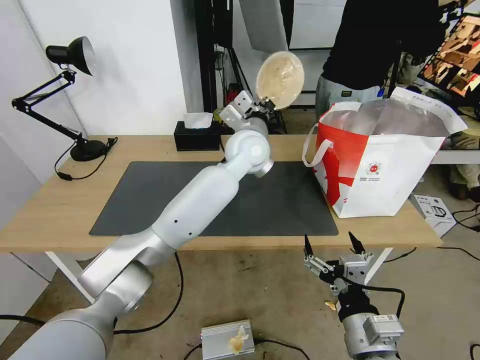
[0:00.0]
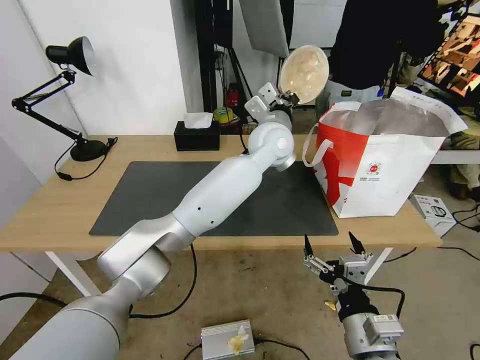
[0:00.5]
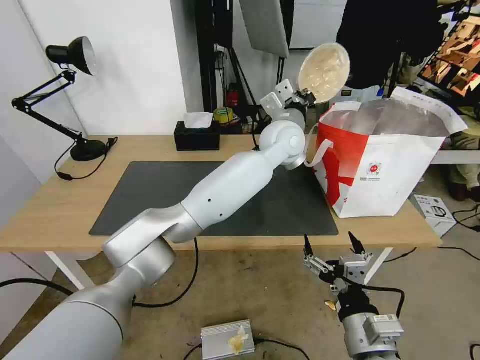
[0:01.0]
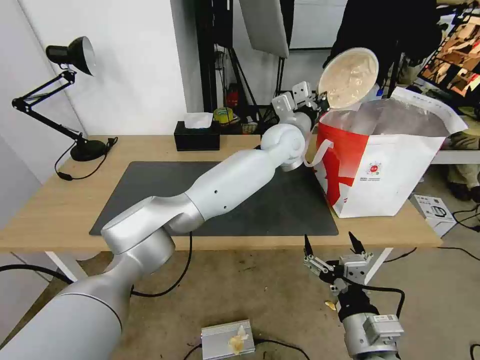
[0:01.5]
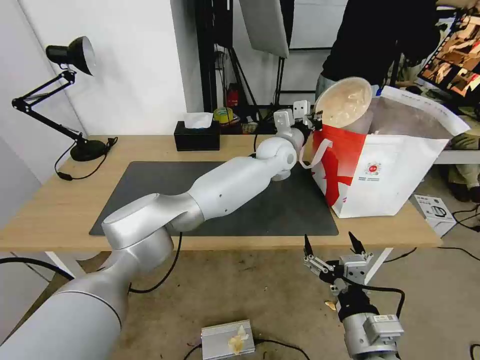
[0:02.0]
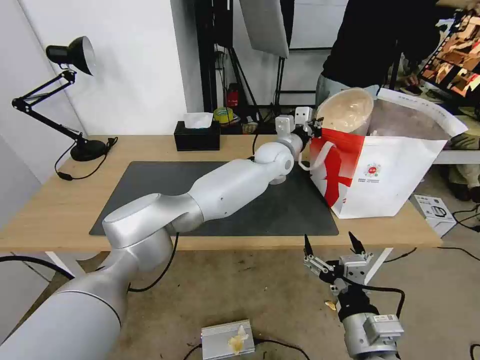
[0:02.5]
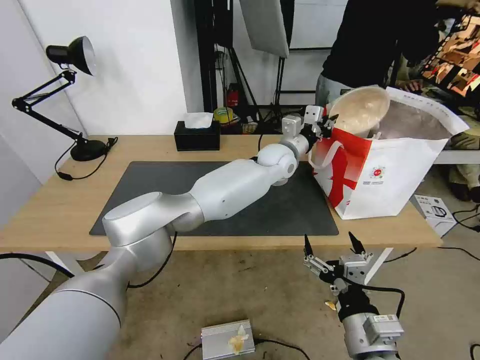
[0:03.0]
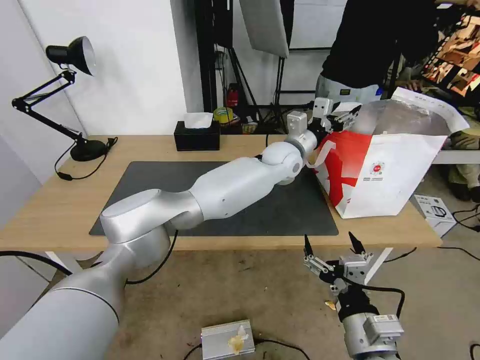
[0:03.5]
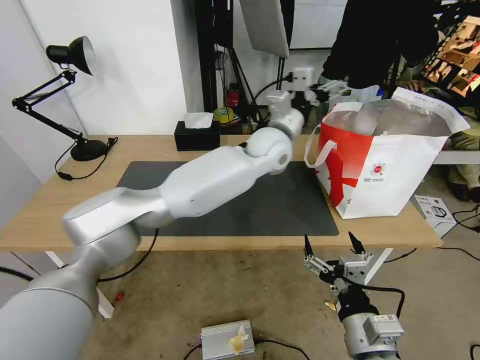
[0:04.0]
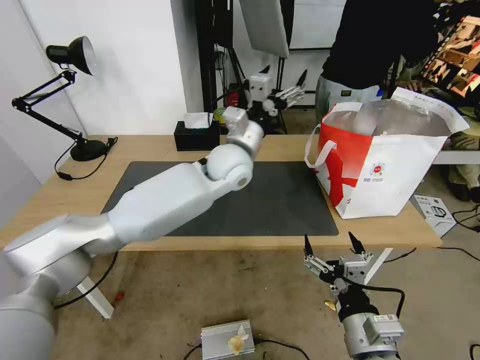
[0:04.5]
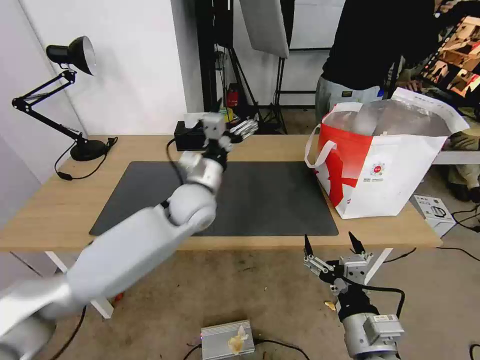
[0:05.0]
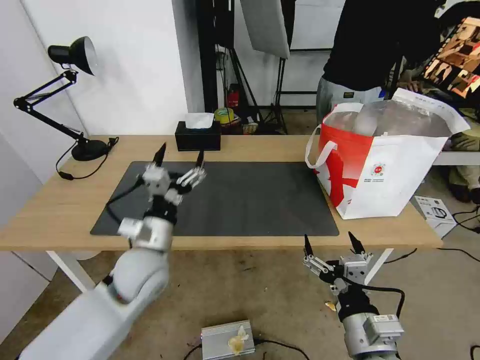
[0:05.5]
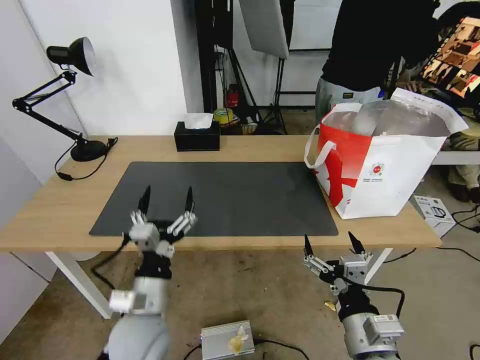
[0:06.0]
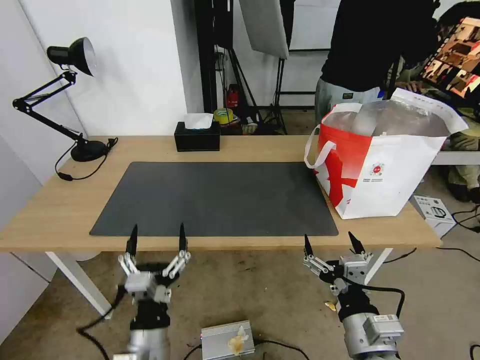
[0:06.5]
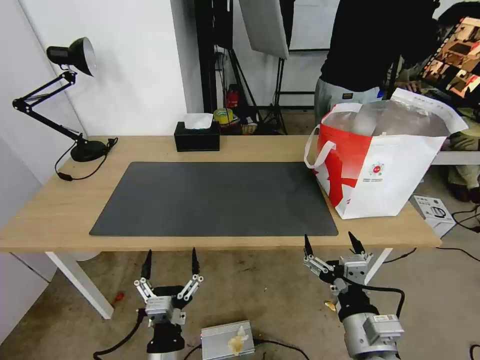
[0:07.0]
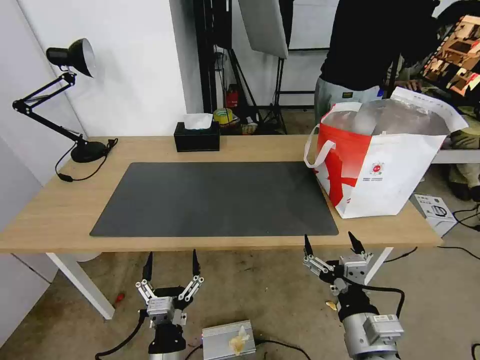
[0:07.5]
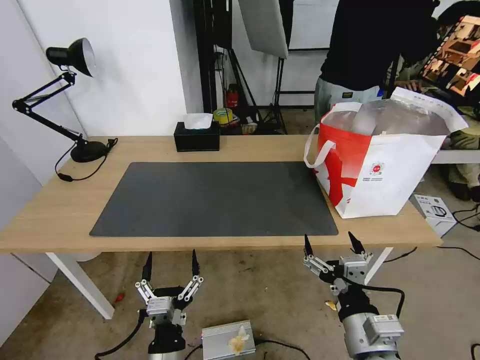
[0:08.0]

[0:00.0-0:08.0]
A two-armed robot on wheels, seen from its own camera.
Task of the whole recording: Pick up the trash from the table and place it into the takeout bag.
0:00.0 to 0:02.0: The left gripper goes roughly 10 cm to the right, forward and downward.
0:02.0 to 0:04.0: The left gripper moves upward, about 5 cm, and opens up.
0:04.0 to 0:06.0: The left gripper travels backward, to the left and downward by approximately 40 cm.
0:06.0 to 0:08.0: The left gripper is displaced backward, downward and to the right by some 15 cm.

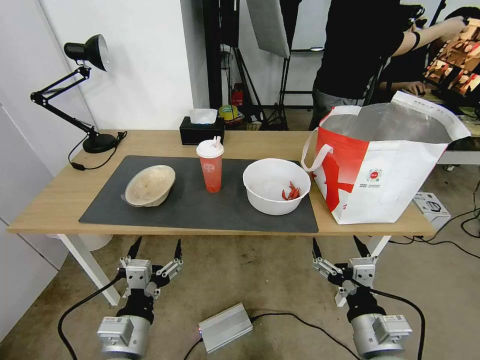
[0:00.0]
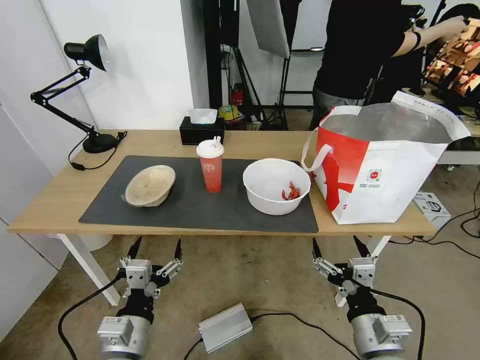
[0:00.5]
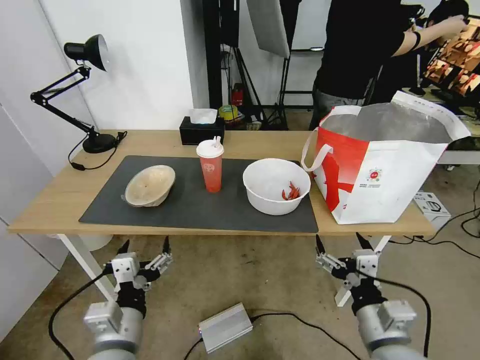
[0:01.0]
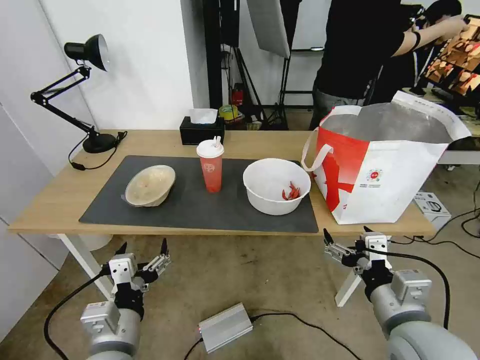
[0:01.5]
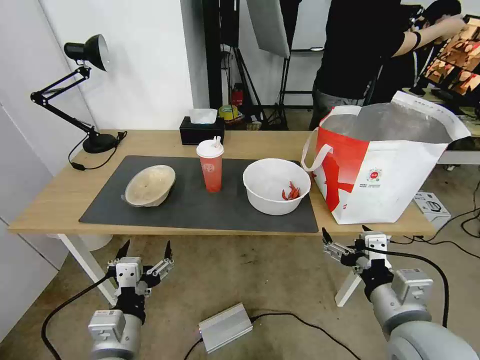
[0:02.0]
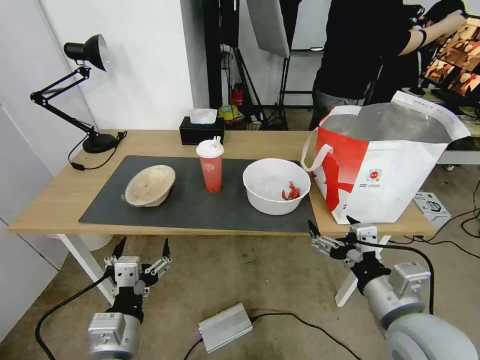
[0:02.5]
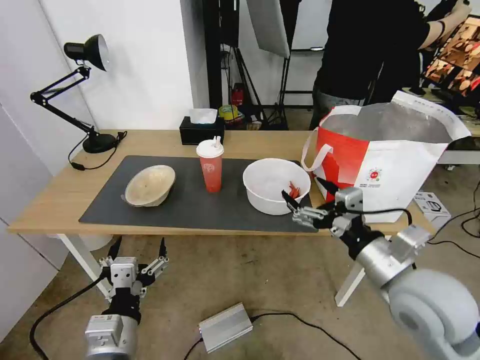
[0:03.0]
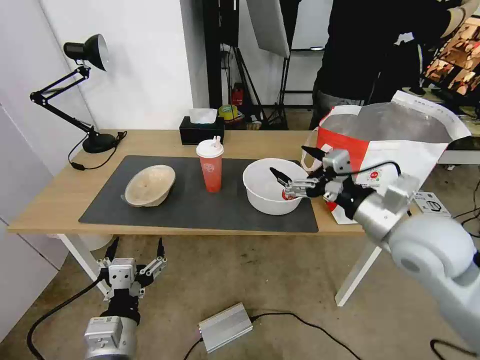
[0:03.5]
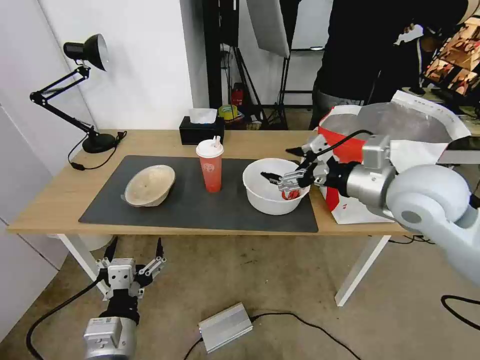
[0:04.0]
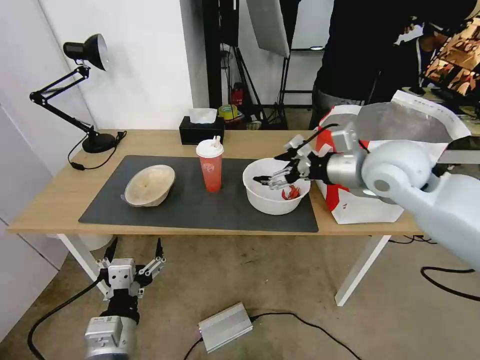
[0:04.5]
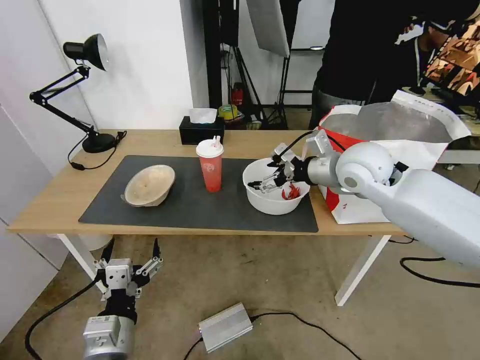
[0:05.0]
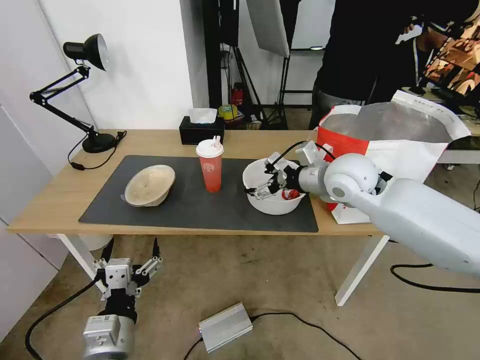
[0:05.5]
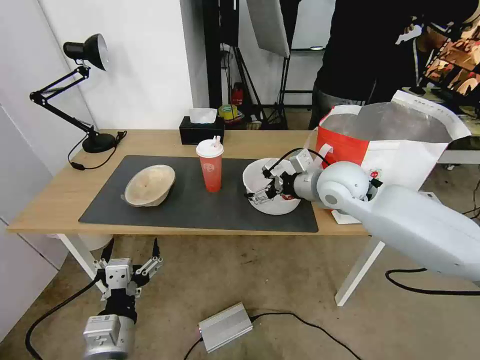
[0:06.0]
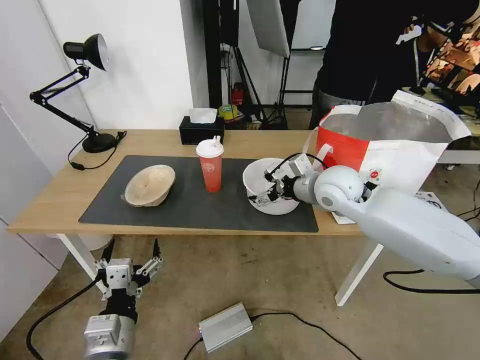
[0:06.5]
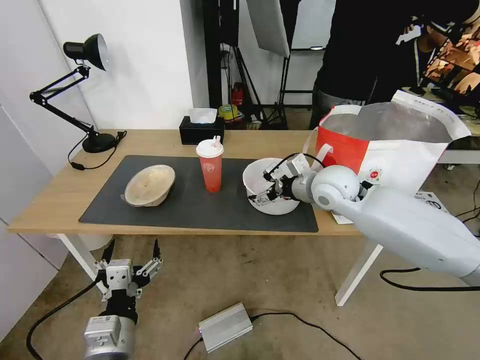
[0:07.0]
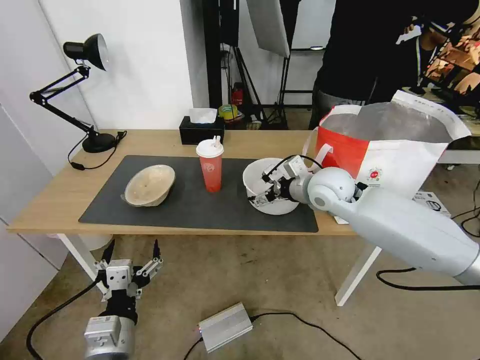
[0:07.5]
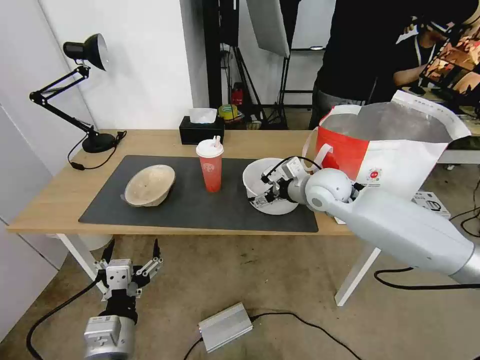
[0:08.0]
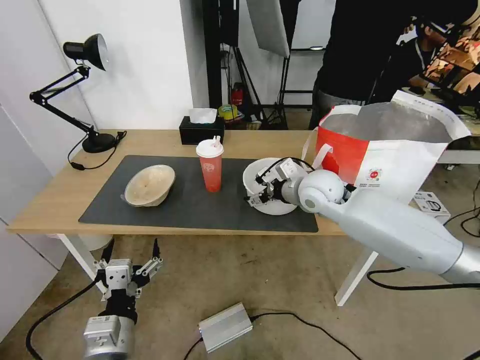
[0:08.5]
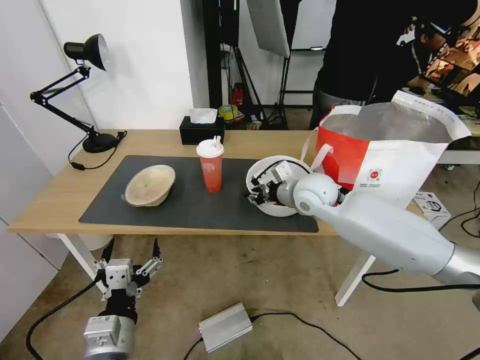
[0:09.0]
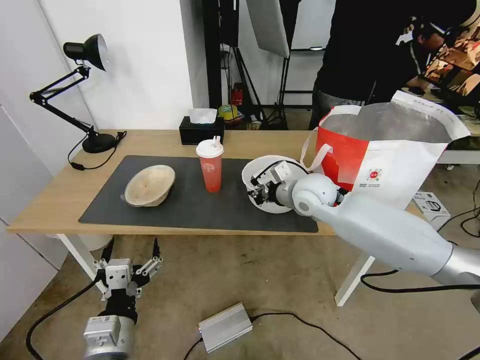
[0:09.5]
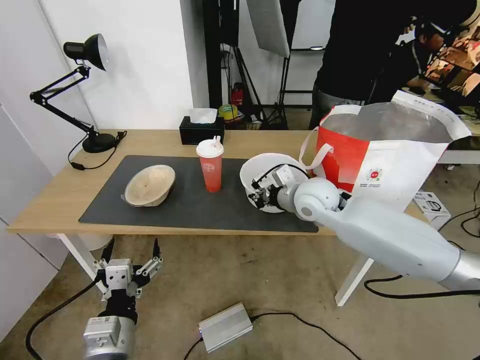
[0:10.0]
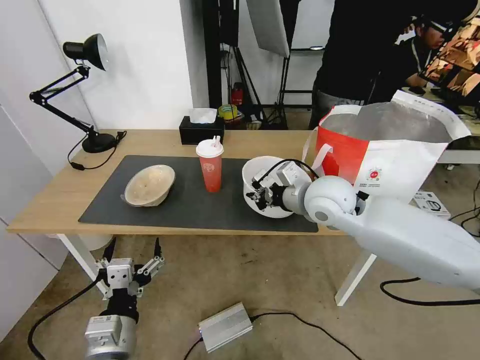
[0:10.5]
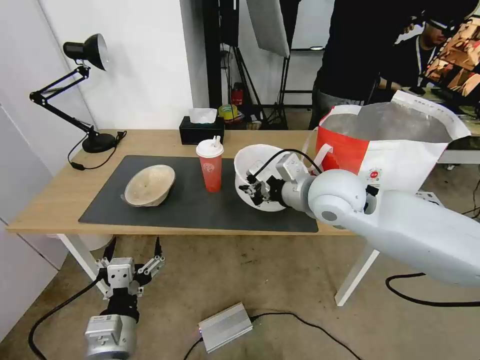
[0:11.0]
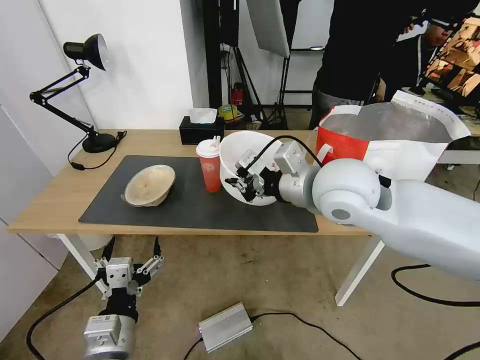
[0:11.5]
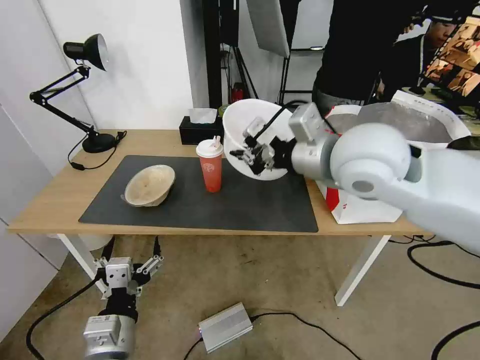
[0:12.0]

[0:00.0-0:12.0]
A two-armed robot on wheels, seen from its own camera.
Task of the whole recording: Pick up the trash from the table and place it into the takeout bag.
0:02.0 to 0:04.0: The right gripper shifts about 25 cm forward and upward.
0:04.0 to 0:06.0: The right gripper is displaced forward, downward and to the left by roughly 15 cm.
0:06.0 to 0:08.0: The grippers make only small movements.
0:08.0 to 0:10.0: The right gripper closes its fingers.
0:10.0 to 0:12.0: The right gripper is displaced upward and backward by about 20 cm.

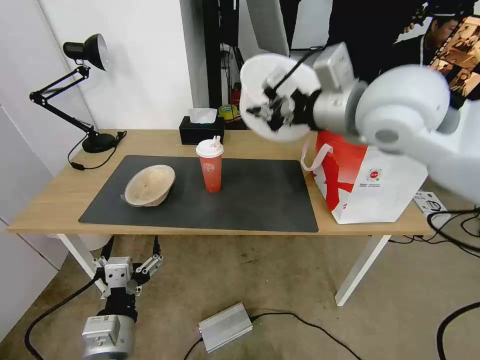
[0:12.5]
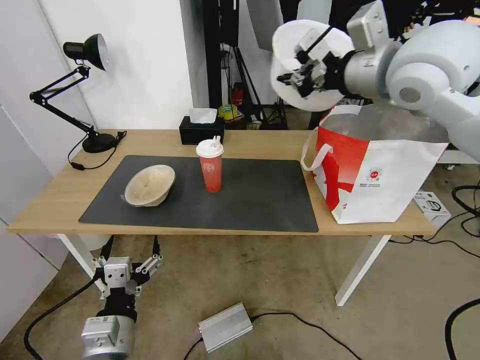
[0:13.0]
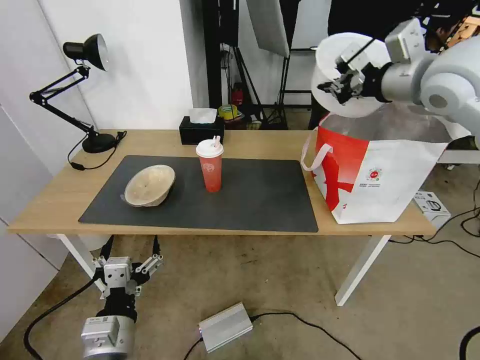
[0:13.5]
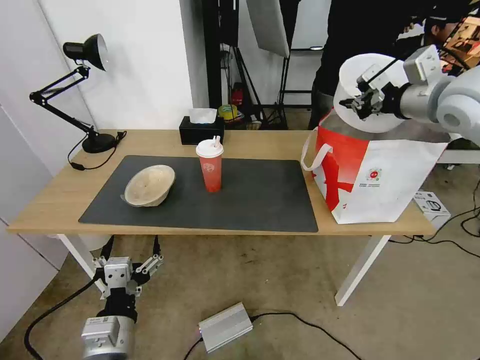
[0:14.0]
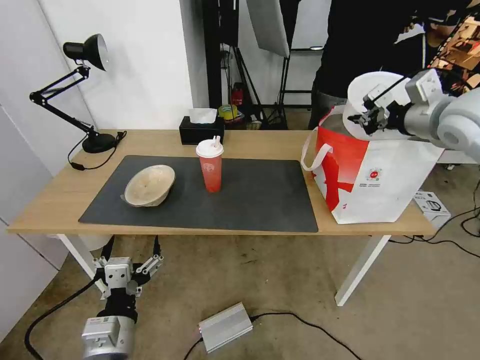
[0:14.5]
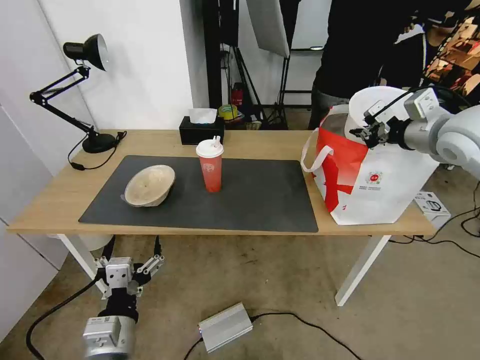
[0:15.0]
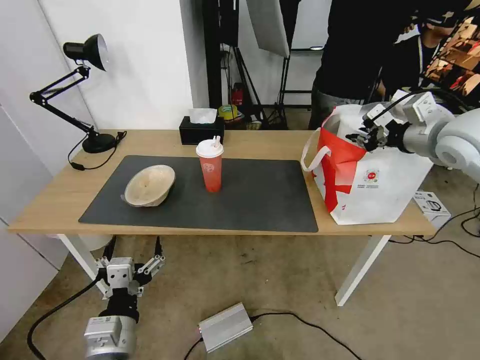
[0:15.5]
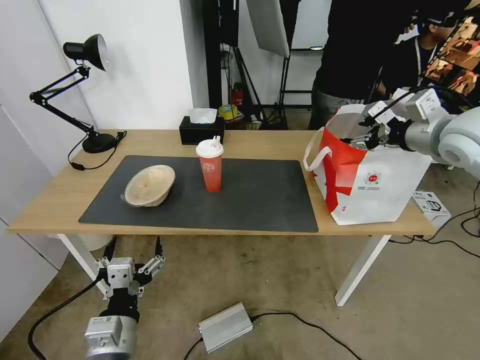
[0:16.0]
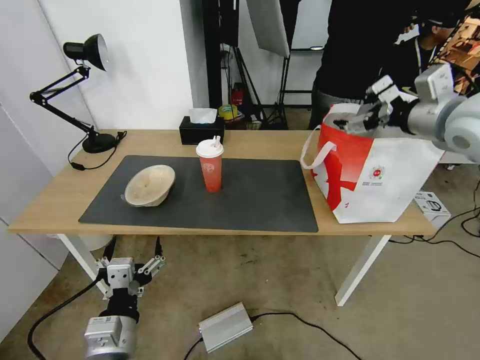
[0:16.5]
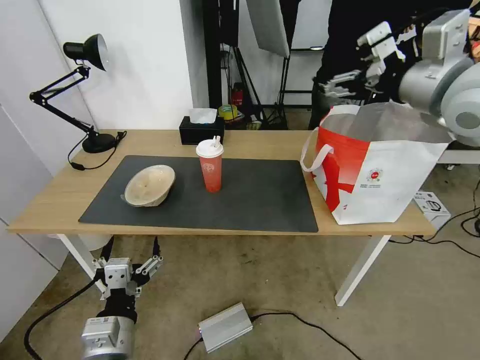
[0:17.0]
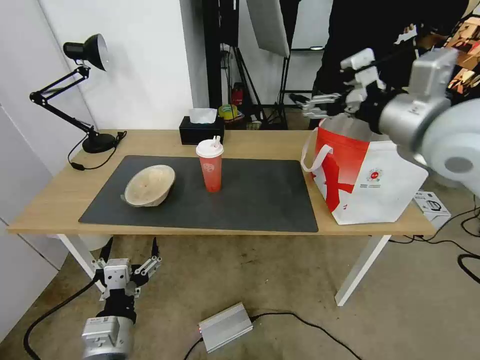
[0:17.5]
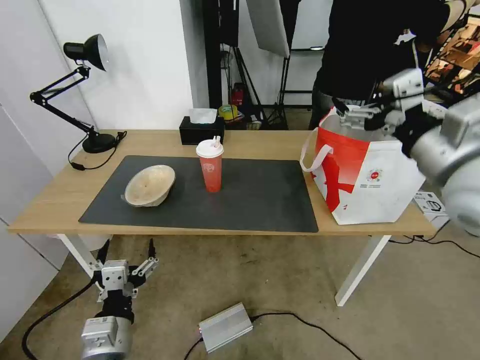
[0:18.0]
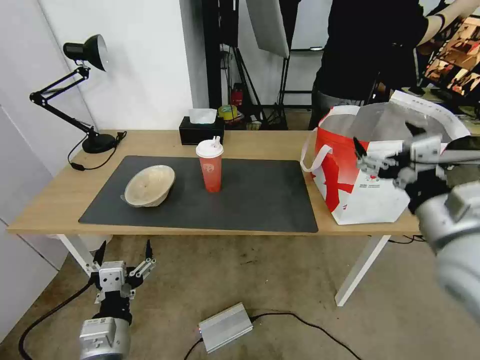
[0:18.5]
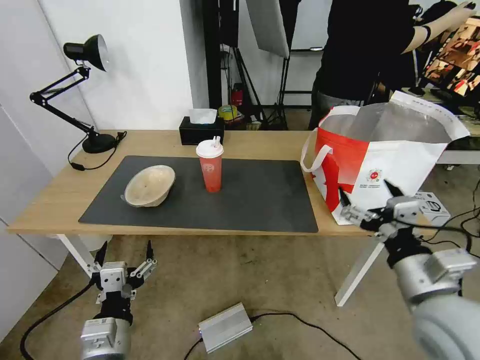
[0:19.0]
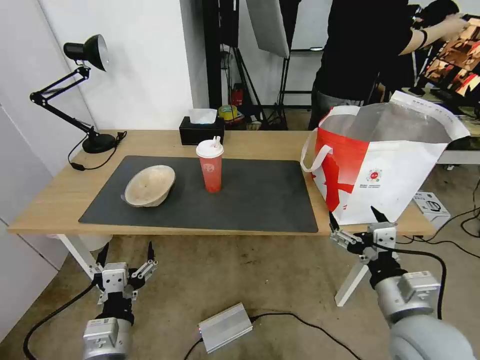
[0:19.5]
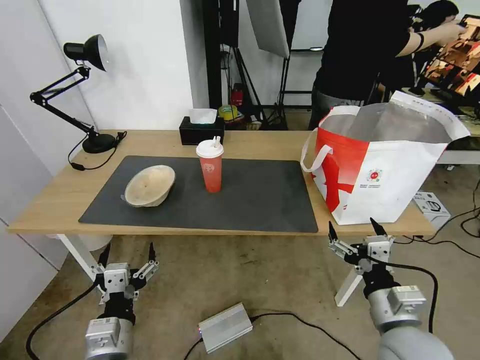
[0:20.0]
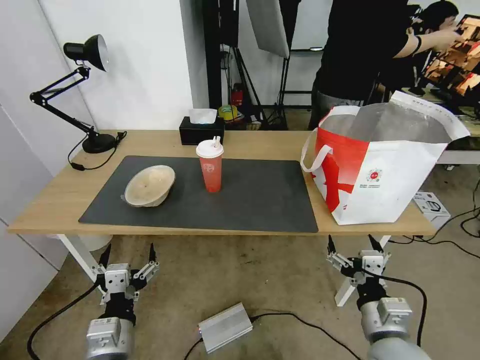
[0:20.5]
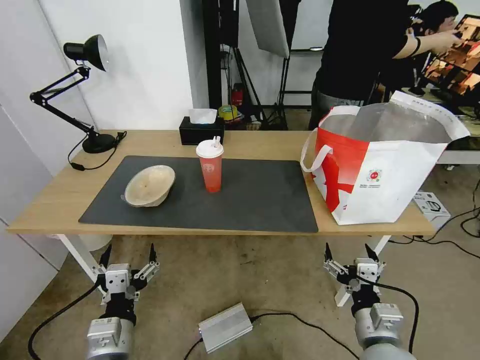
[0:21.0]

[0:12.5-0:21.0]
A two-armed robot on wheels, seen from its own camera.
Task of the whole recording: Pick up the trash from the table and place it into the takeout bag.
0:12.5 to 0:14.5: The right gripper is displaced to the right by roughly 20 cm.
0:14.5 to 0:16.5: The right gripper opens up.
0:16.5 to 0:19.0: The right gripper goes some 30 cm backward and downward.
0:19.0 to 0:21.0: The right gripper goes roughly 15 cm downward.
